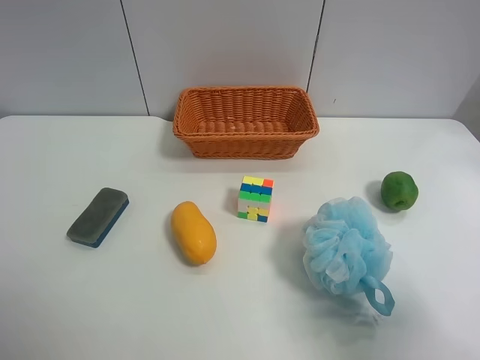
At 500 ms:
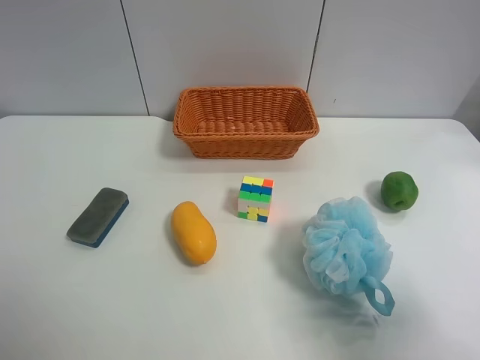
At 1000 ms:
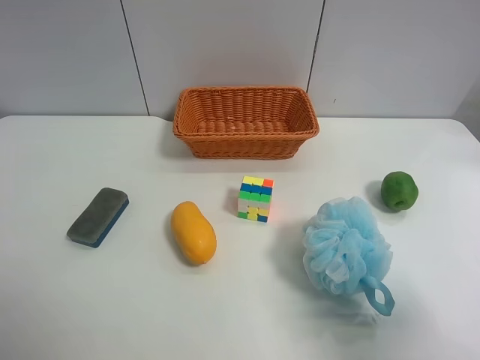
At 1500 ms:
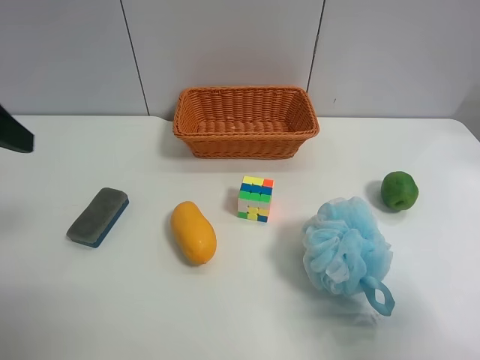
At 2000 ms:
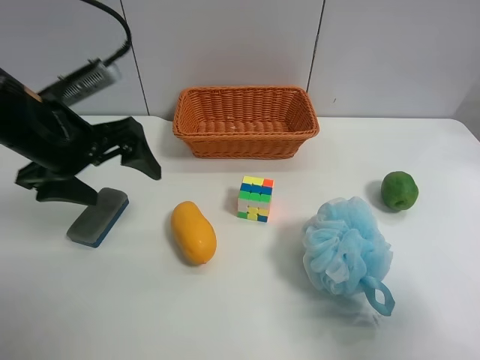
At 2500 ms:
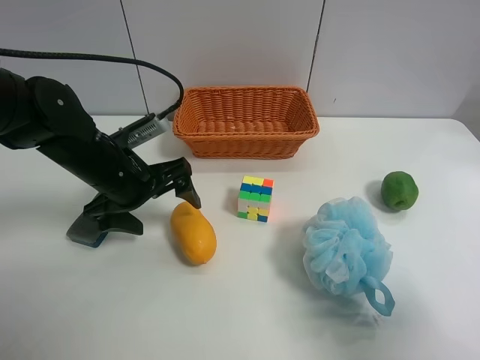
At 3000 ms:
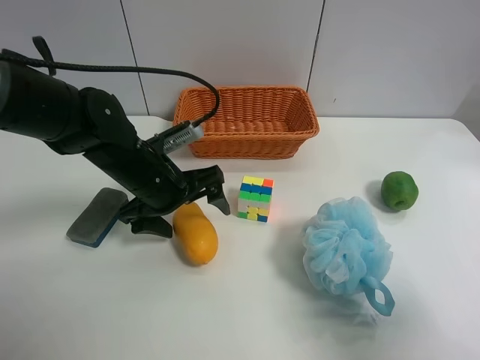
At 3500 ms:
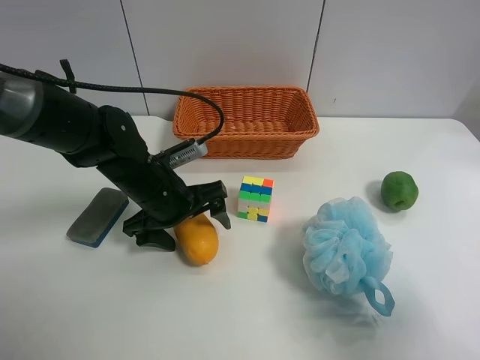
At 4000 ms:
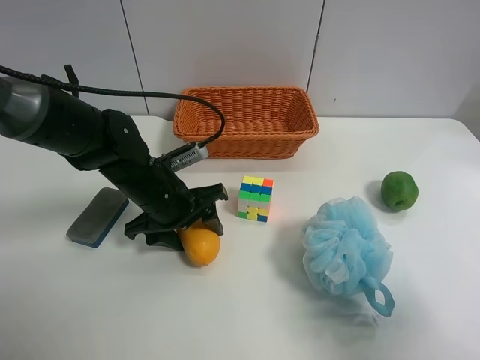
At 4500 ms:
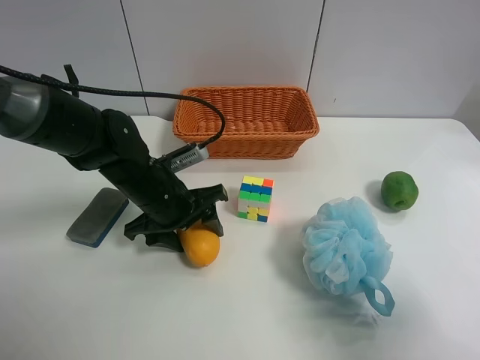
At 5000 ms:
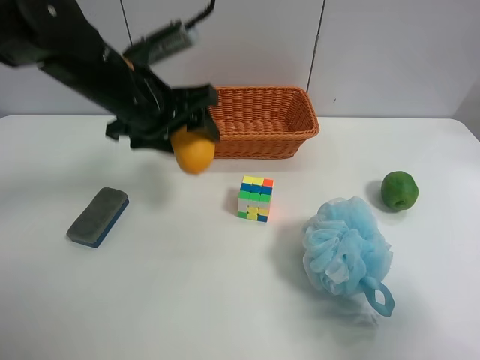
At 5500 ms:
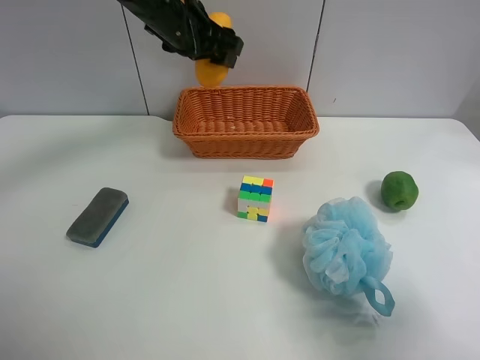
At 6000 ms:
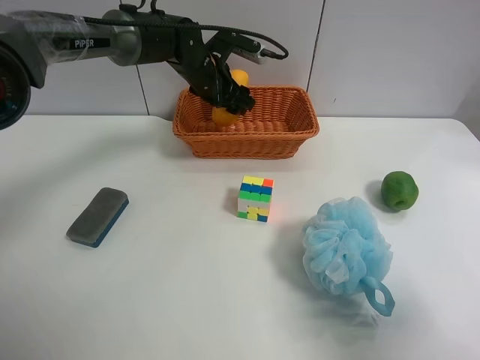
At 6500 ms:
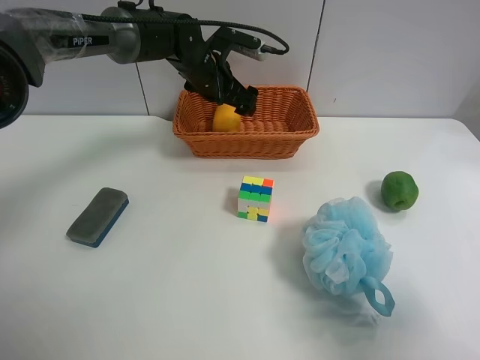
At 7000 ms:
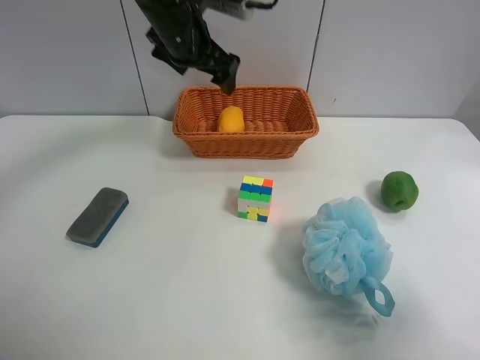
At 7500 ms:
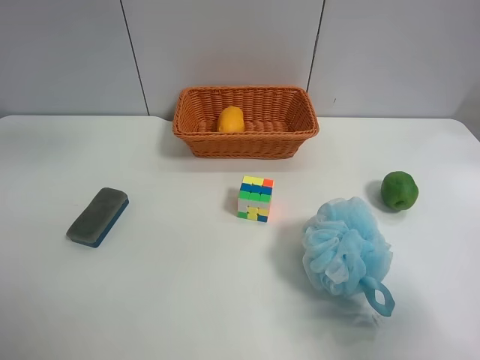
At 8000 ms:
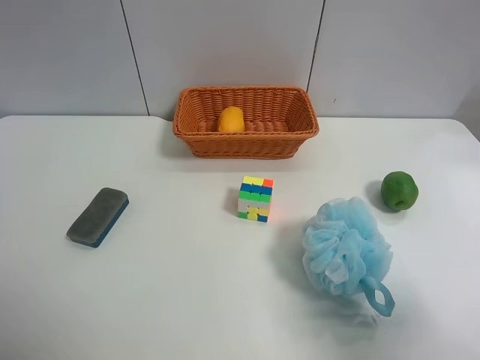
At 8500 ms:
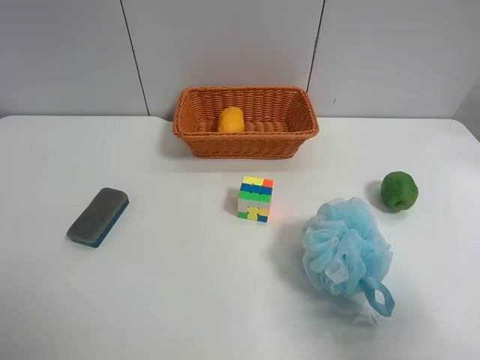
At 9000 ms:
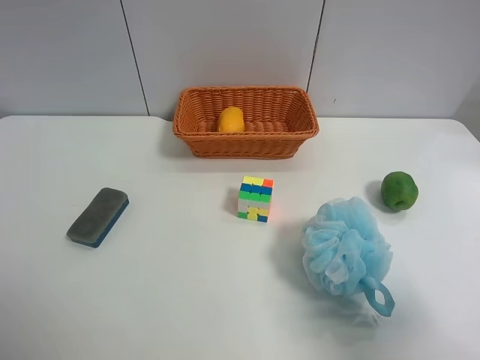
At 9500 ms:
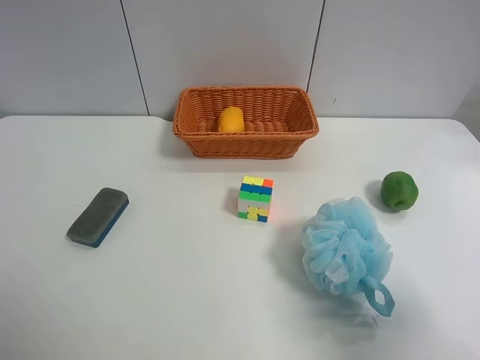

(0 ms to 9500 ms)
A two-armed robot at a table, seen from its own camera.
Task of the whole recording: use the left gripper to grab items from the table and place them in the basket.
Step, 0 ms - 3500 ms: Grasp the mango with the left gripper.
Step, 4000 ms - 6500 ms: Place the mango into the basket with the left gripper.
0 ms - 2000 ms: The left gripper goes about 30 cm forward and to the right.
2000 ms - 4000 ms: The left gripper shifts about 15 cm downward and to the right, and closes.
4000 ms - 5500 ms: The left gripper goes approximately 25 cm upward and forward.
5500 ms - 7500 ms: The left gripper shifts roughly 25 cm upward, backward and to the left, and opens up.
7500 ms - 9500 ms: The left gripper is displaced backward, downward and to the left by approximately 40 cm.
